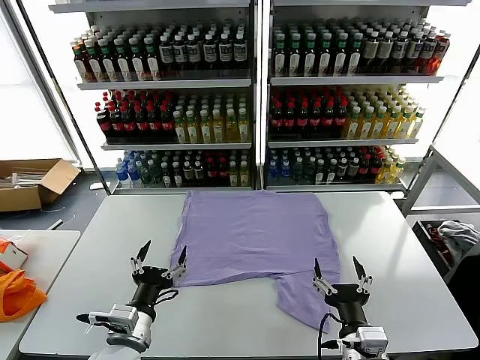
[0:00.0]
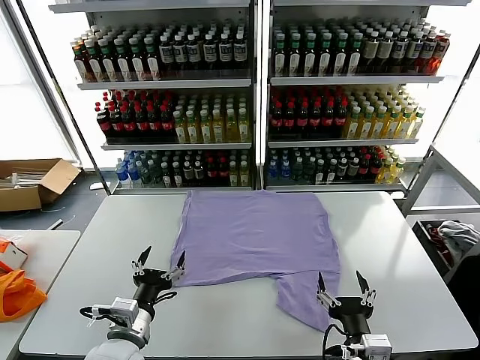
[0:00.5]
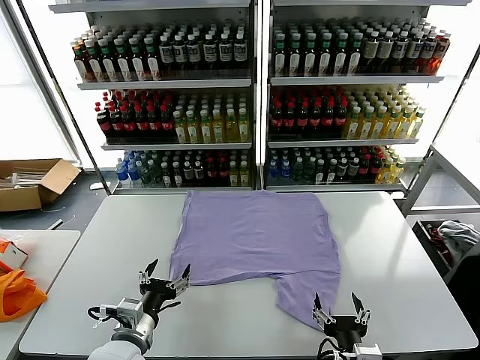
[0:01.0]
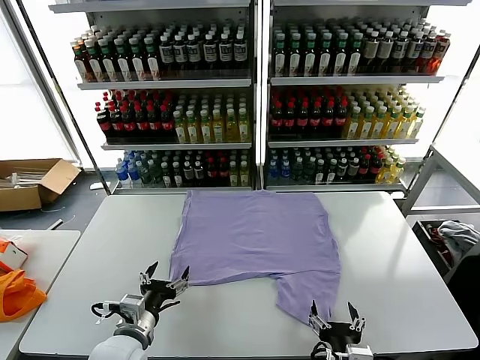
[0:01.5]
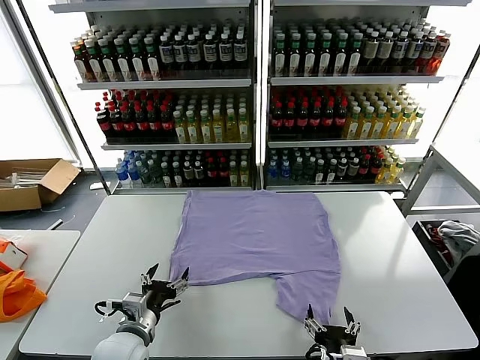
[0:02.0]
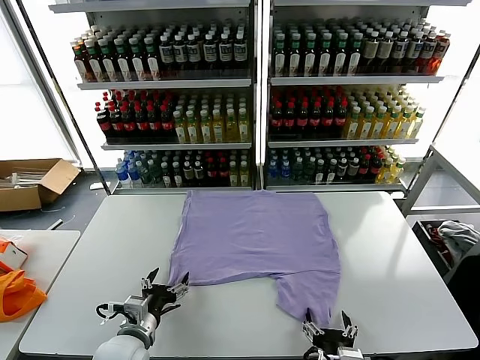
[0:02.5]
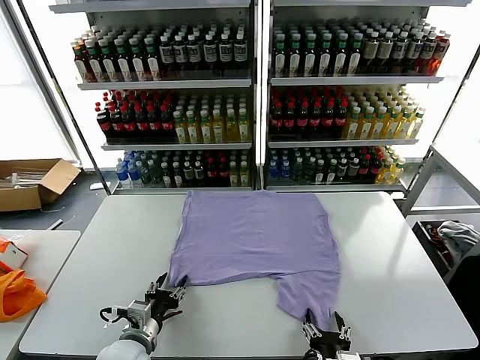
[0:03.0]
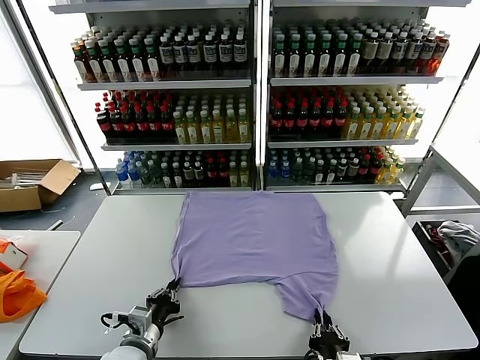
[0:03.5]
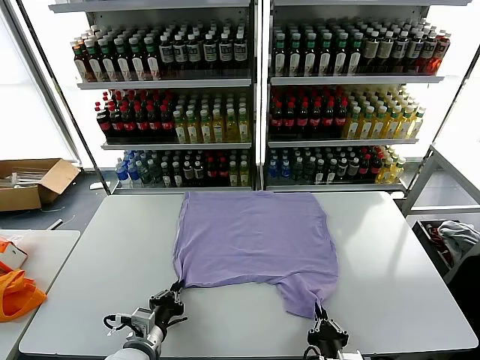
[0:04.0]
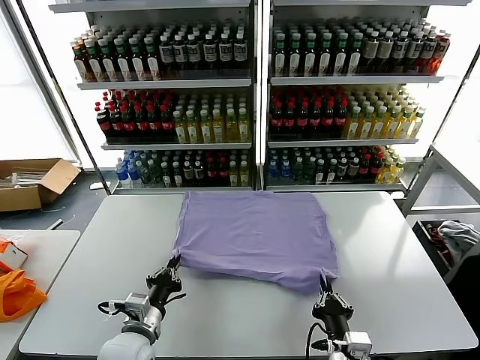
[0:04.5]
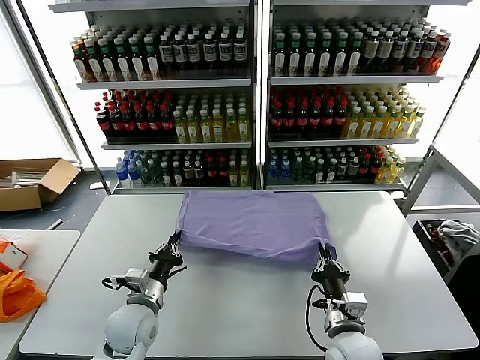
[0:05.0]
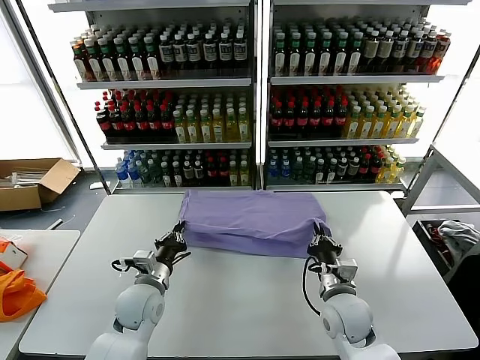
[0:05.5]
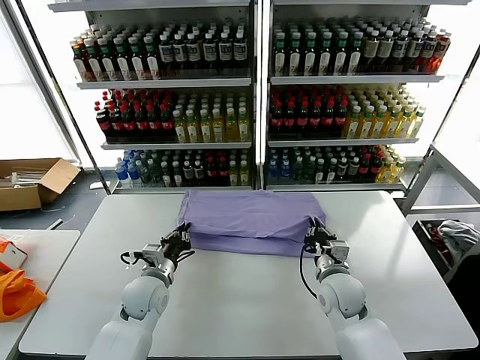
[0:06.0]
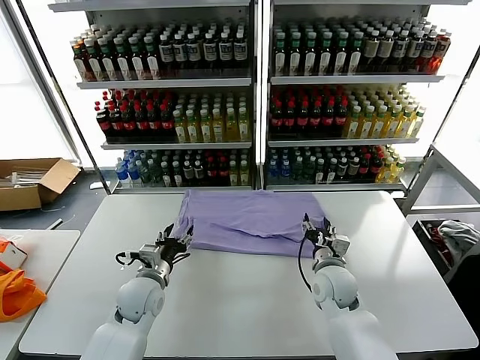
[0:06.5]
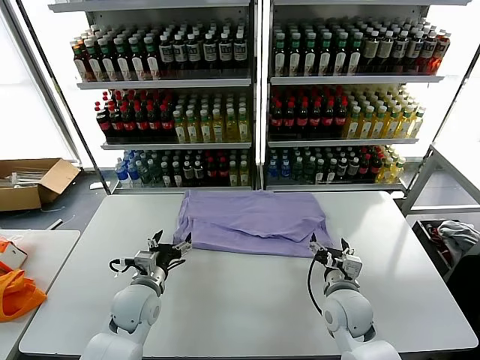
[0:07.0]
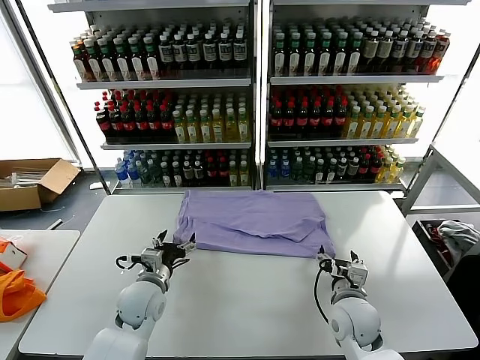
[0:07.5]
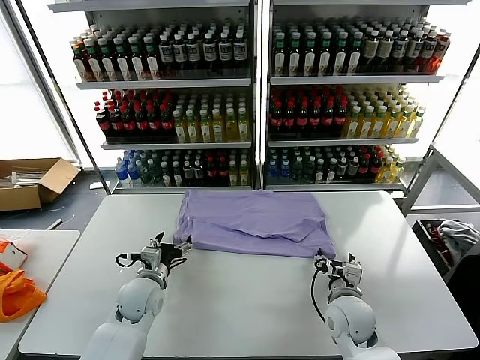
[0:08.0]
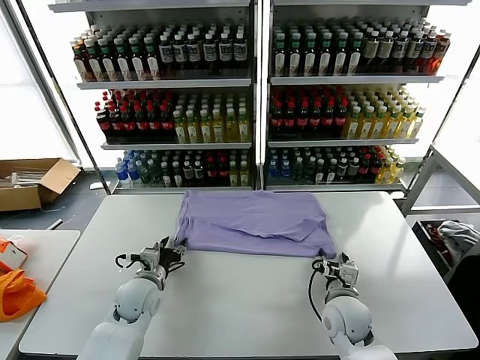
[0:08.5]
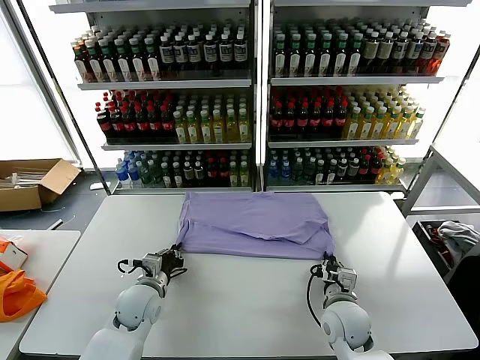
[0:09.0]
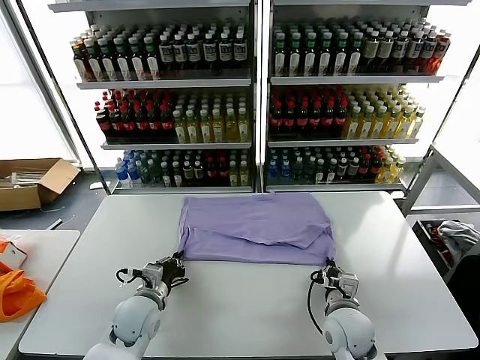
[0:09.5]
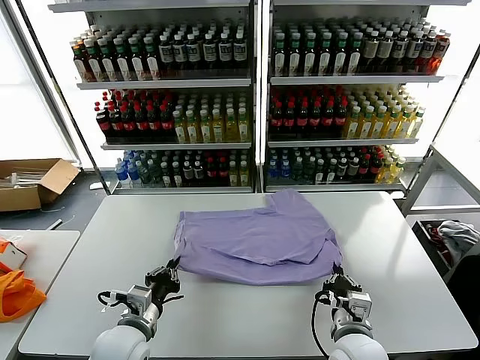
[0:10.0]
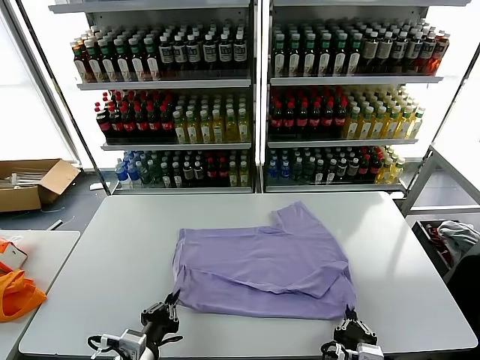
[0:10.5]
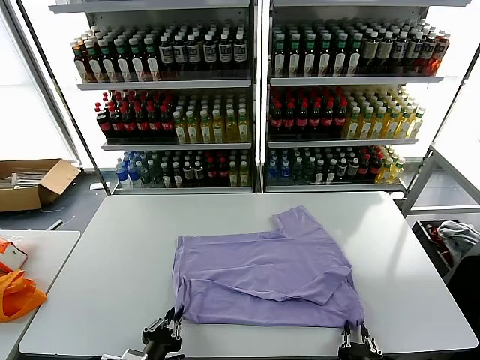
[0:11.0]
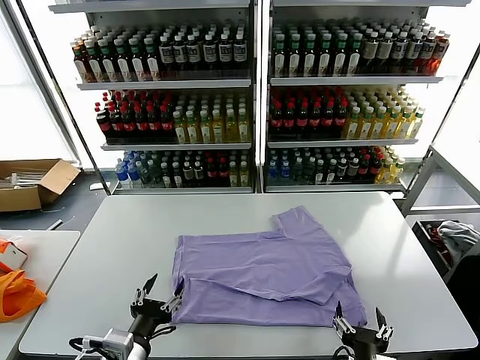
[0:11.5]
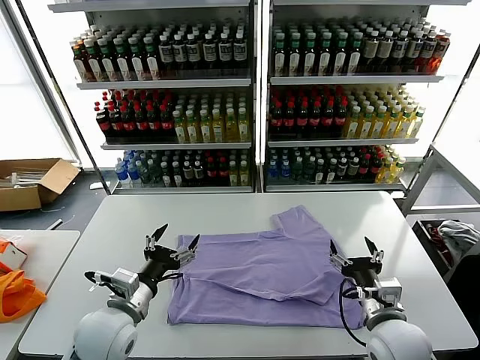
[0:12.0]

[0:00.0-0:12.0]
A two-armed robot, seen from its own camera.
Task of the whole recording: fold and organize the clothes.
Step, 0.0 to 4.0 s: use both grippers simultaneously to clamp the lower edge of the clothing fabric.
Step, 4.5 to 6.0 s: use both grippers to drag the lower edge of the fabric forward and fold it over the upper edge.
Step, 6.5 to 11.0 s: Drag the clothes downward with both gripper.
2.0 to 4.0 s: The right gripper closes its fingers, while the left gripper closes its fingers.
4.0 to 6.0 s: The left gripper shifts about 15 cm forward, while the right gripper heads forward, covering about 25 cm.
6.0 to 8.0 s: The right gripper shifts some 5 cm backward, and opens up; the left gripper opens.
8.0 to 10.0 s: The grippers both shift backward by about 10 cm. The left gripper closes. The right gripper closes up.
10.0 to 12.0 s: The left gripper shifts approximately 5 cm upward, reaches roughly 10 cm backward, then returns, and opens. Meanwhile the right gripper moves to the right and forward, approximately 10 cm, and opens up.

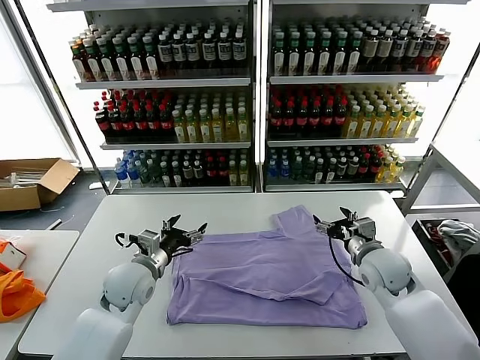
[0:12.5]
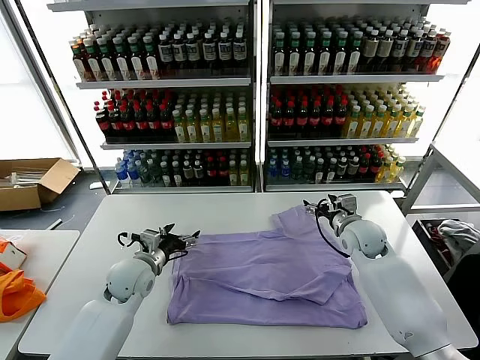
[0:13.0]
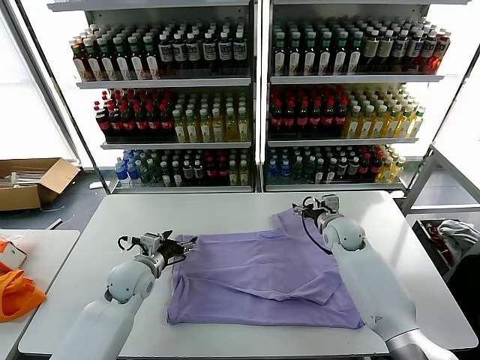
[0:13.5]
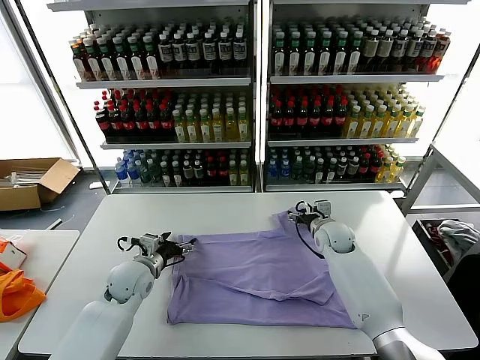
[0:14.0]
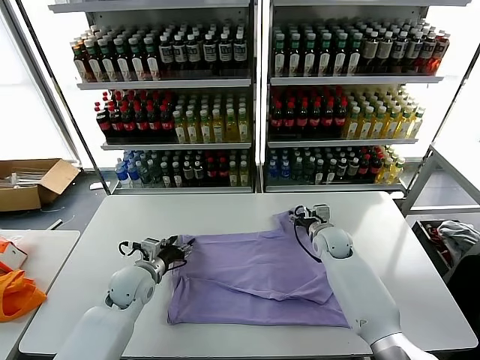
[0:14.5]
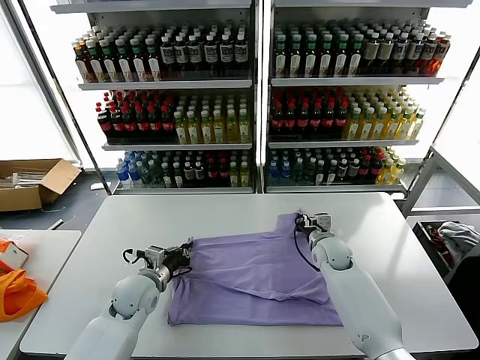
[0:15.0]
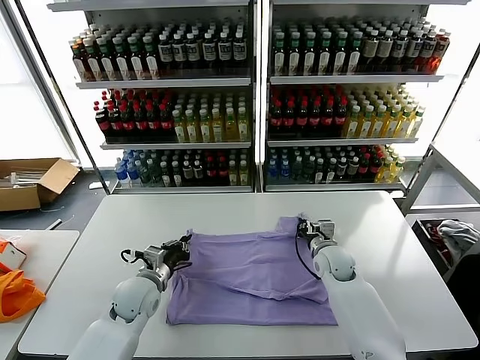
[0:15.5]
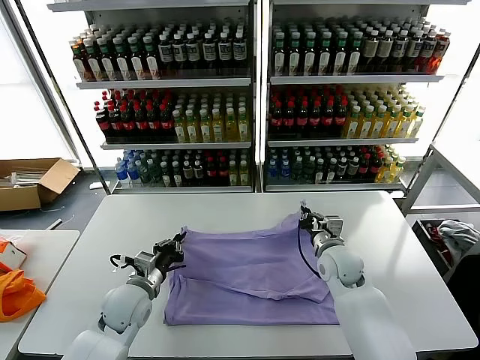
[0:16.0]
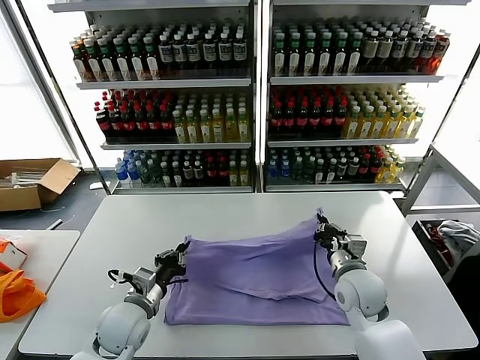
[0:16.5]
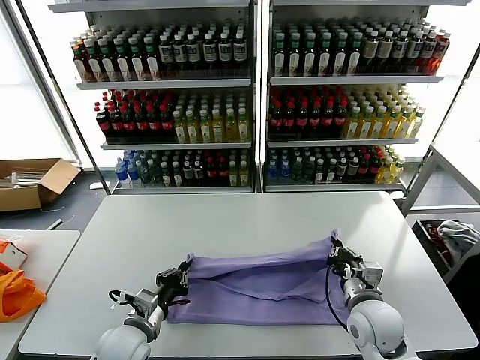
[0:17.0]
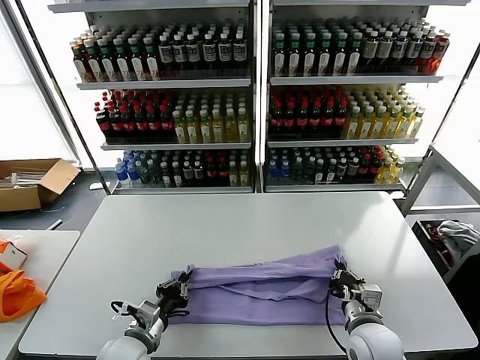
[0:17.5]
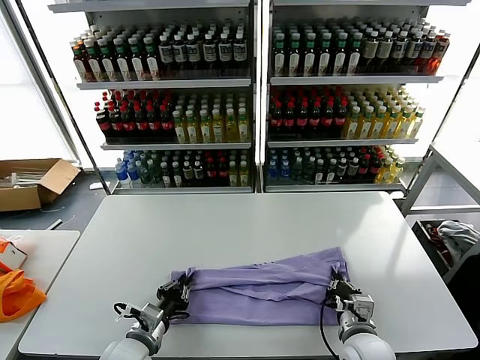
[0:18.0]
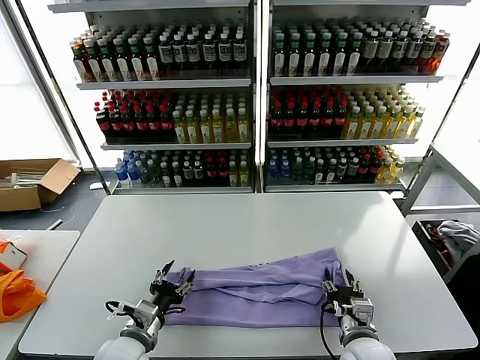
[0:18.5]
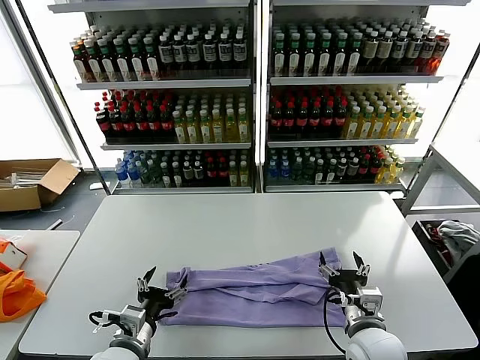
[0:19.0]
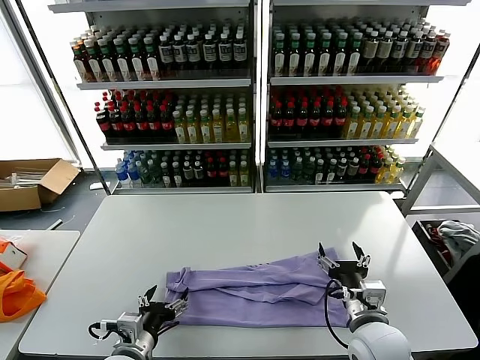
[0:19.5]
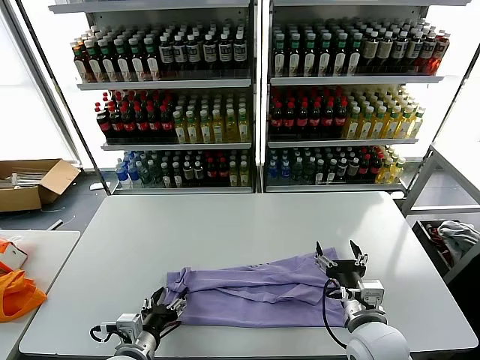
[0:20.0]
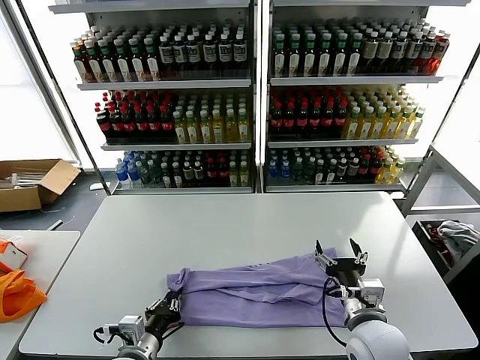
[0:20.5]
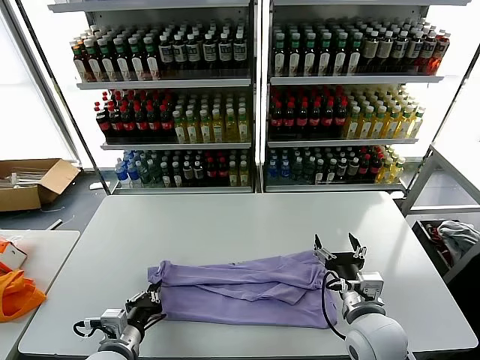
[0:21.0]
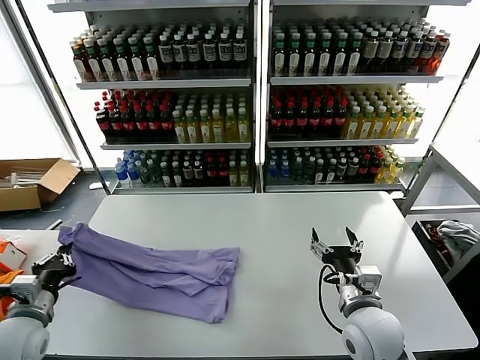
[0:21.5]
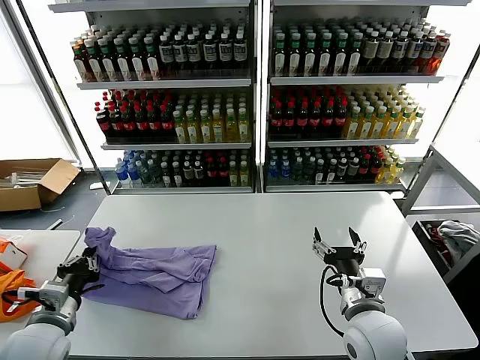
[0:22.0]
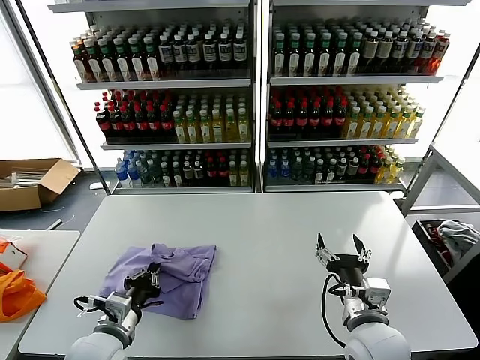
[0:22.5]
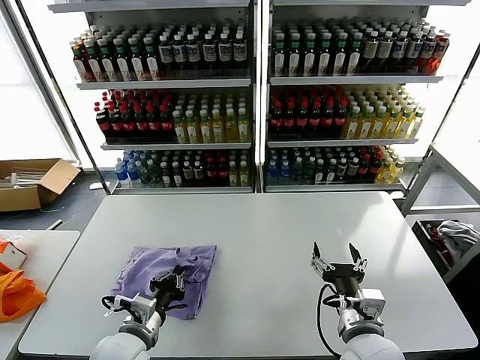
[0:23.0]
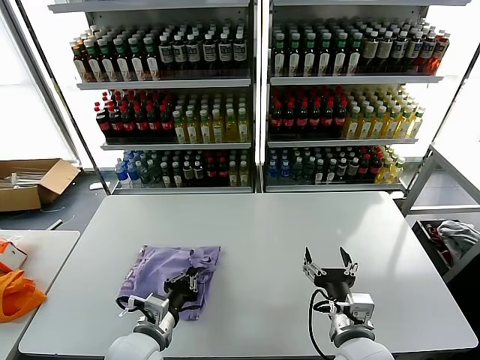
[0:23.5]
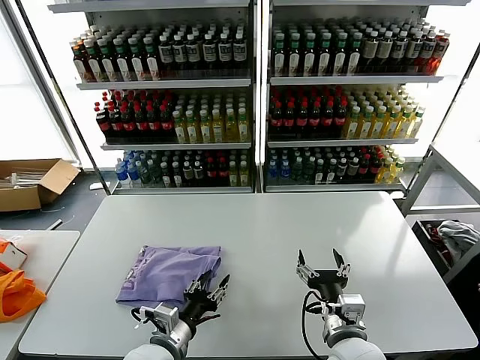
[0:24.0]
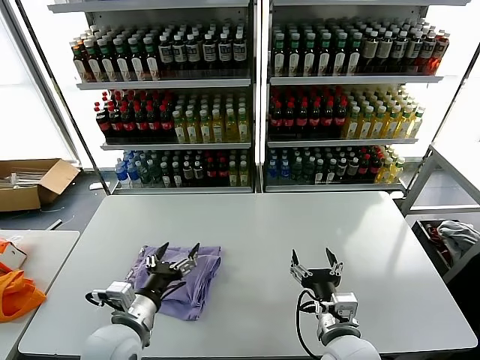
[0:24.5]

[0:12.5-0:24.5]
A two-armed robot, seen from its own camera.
Task of the whole recording: fold and organize the clothes.
Step, 12.5 to 15.0 s: use both grippers simultaneously to clamp the upper edge of the clothing fabric.
Step, 16.0 to 18.5 s: use both grippers to drag the upper edge of the fabric backward and fold it over the lower edge.
Step, 19.0 to 20.5 s: use the left gripper to clamp the left edge of the fabric.
Step, 21.0 to 23.5 s: use the left gripper to drag the left edge of the fabric to the left and folds it over the right edge.
12.5 to 14.5 s: The left gripper goes some 5 cm downward, while the right gripper heads forward, downward and to the left, covering some 15 cm.
14.5 to 16.5 s: The right gripper shifts some 15 cm backward, and closes its fingers. The left gripper is displaced backward by approximately 10 cm, and closes its fingers.
16.5 to 18.5 s: The right gripper heads backward and downward, covering some 10 cm, and opens; the left gripper heads backward, covering some 5 cm, and opens up.
18.5 to 20.5 s: The left gripper closes its fingers. Meanwhile the right gripper travels upward by some 5 cm.
20.5 to 22.5 s: The left gripper reaches some 15 cm to the left, then returns.
22.5 to 24.5 s: The right gripper ends up some 5 cm from where it was. The left gripper is displaced to the right by about 5 cm, and opens its fingers.

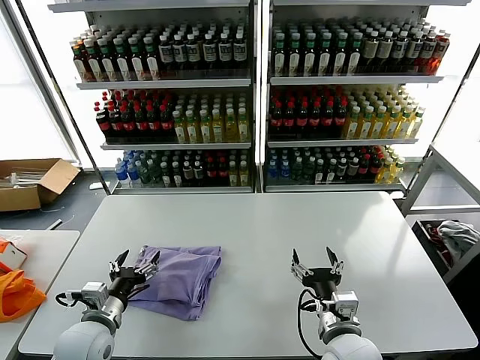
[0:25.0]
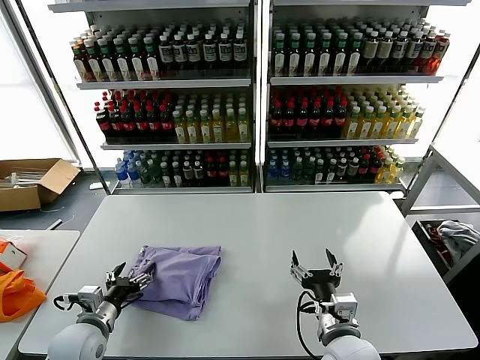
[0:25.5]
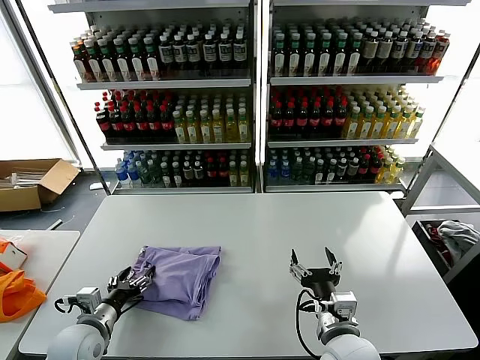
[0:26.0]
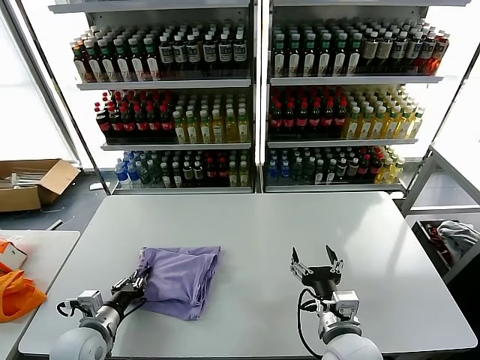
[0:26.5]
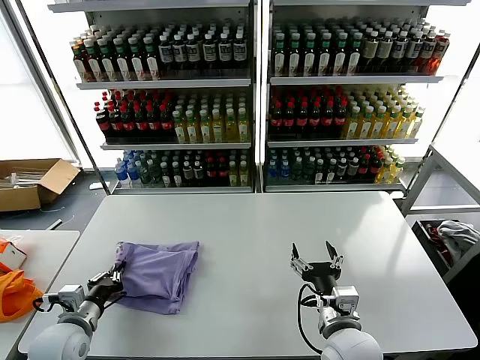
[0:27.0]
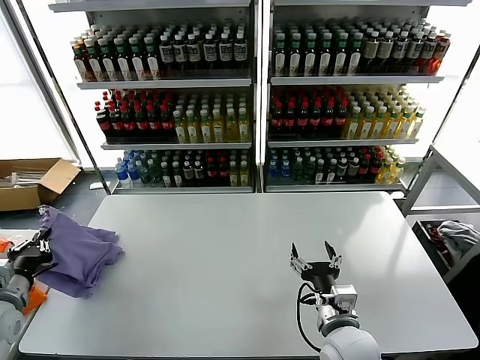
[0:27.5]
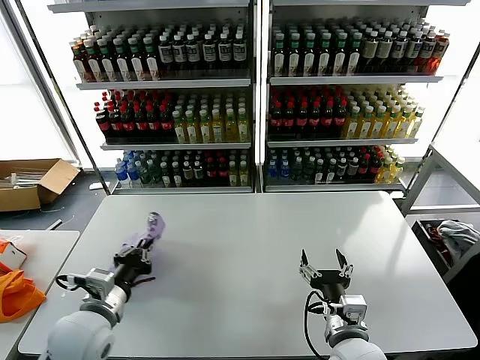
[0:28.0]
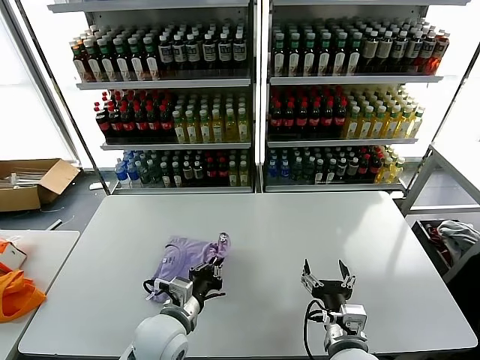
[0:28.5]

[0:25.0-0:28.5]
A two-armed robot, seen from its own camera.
Task of the whole recording: fold and organize the clothes.
25.0 to 27.0 s: The left gripper is displaced to the left by about 5 cm, and closes up.
27.0 to 28.5 s: The left gripper moves to the right, approximately 20 cm.
